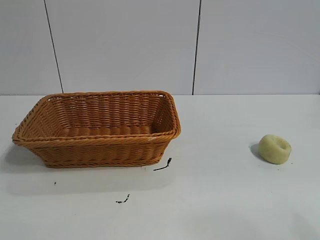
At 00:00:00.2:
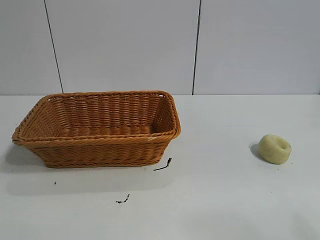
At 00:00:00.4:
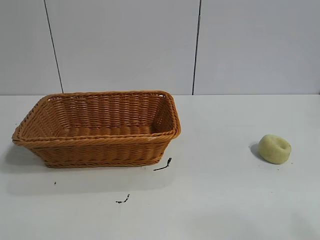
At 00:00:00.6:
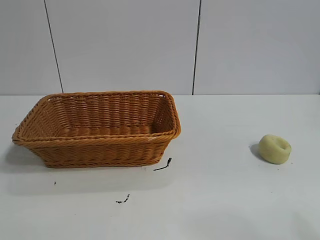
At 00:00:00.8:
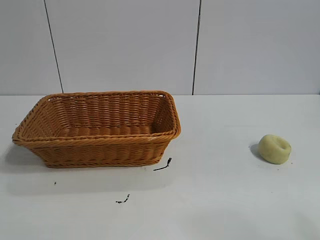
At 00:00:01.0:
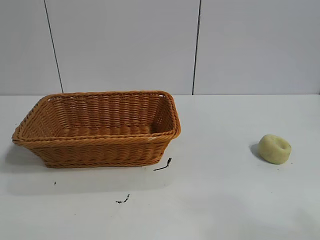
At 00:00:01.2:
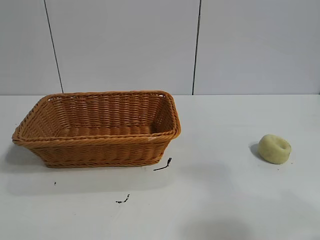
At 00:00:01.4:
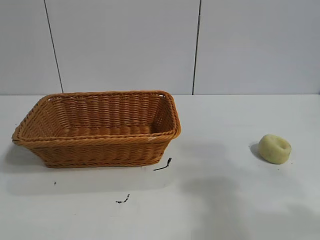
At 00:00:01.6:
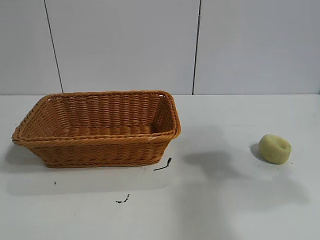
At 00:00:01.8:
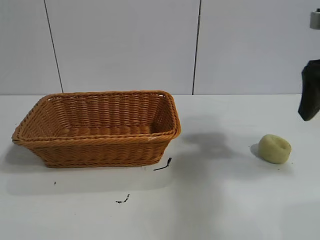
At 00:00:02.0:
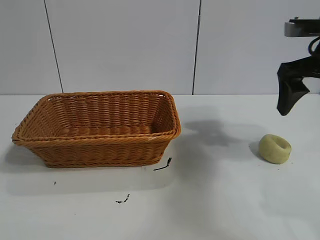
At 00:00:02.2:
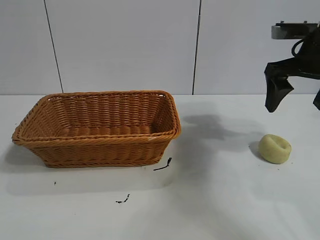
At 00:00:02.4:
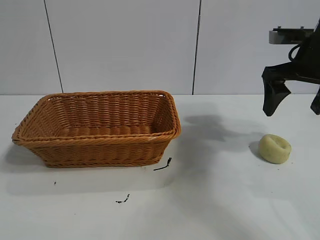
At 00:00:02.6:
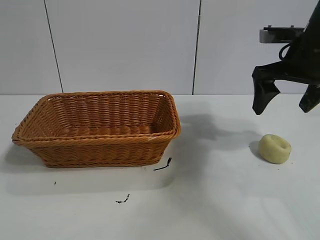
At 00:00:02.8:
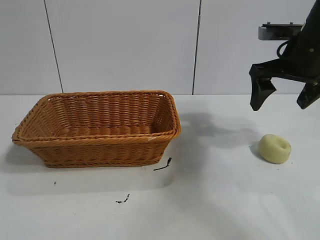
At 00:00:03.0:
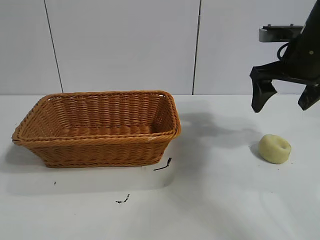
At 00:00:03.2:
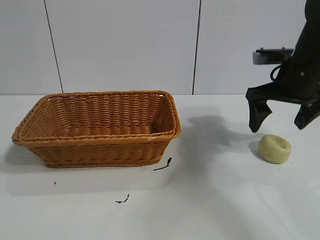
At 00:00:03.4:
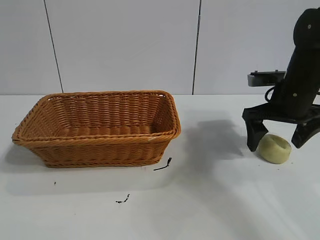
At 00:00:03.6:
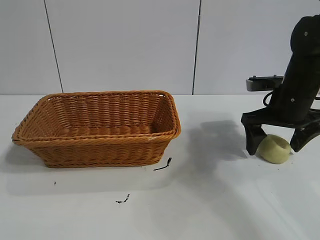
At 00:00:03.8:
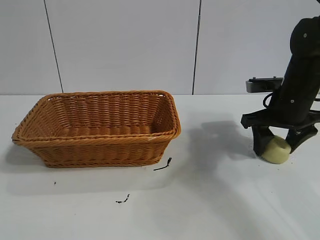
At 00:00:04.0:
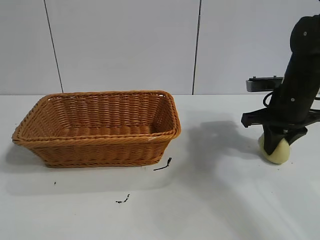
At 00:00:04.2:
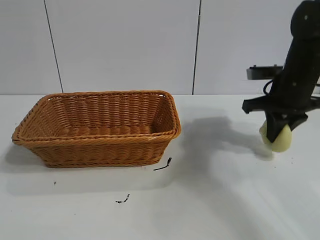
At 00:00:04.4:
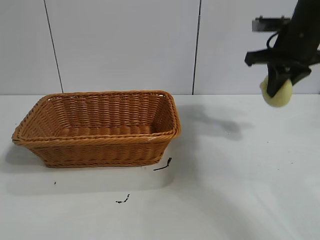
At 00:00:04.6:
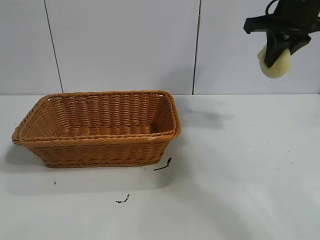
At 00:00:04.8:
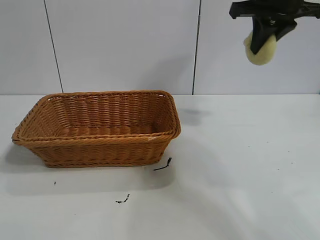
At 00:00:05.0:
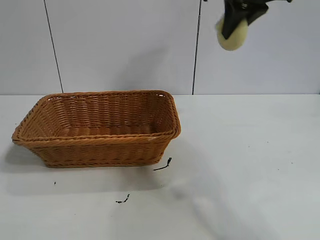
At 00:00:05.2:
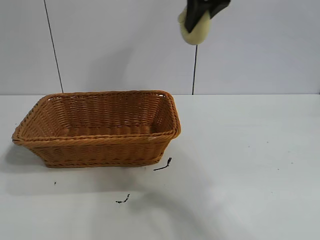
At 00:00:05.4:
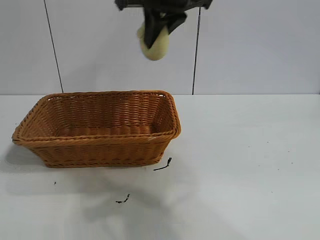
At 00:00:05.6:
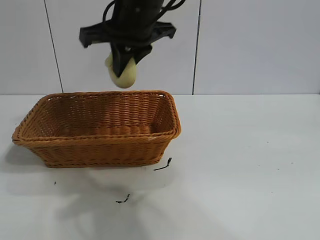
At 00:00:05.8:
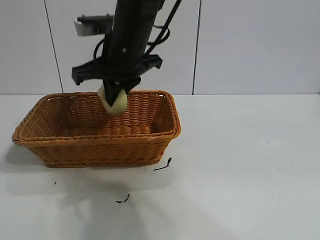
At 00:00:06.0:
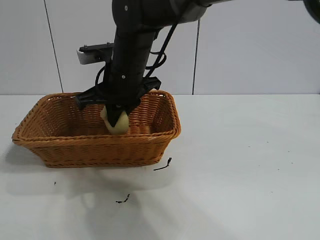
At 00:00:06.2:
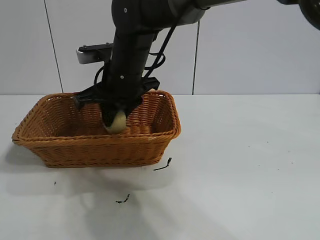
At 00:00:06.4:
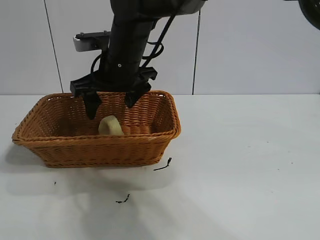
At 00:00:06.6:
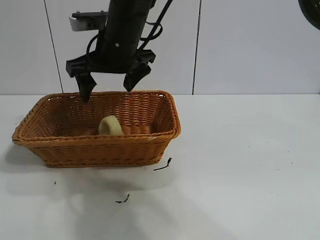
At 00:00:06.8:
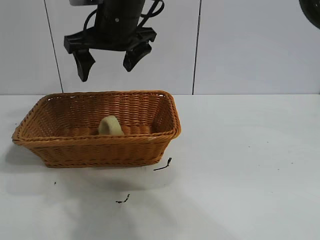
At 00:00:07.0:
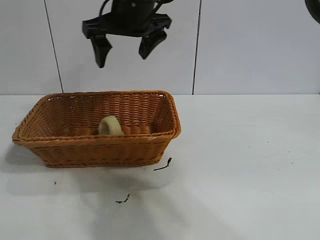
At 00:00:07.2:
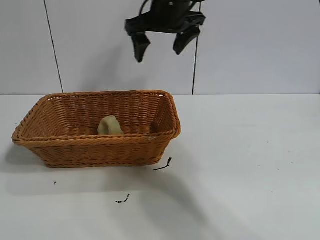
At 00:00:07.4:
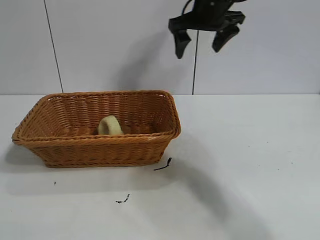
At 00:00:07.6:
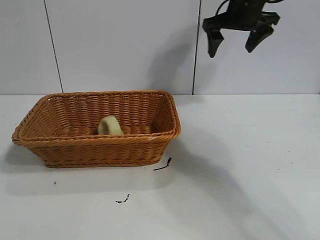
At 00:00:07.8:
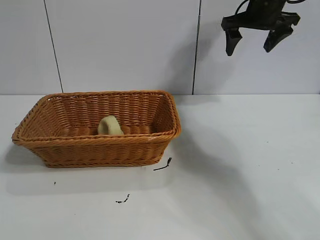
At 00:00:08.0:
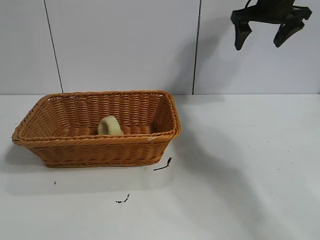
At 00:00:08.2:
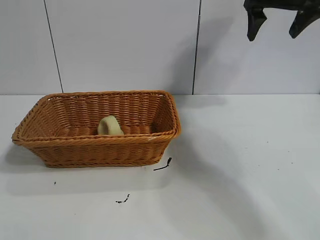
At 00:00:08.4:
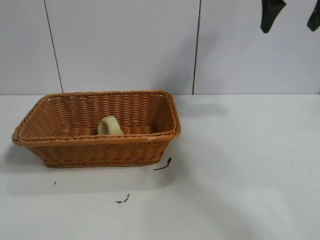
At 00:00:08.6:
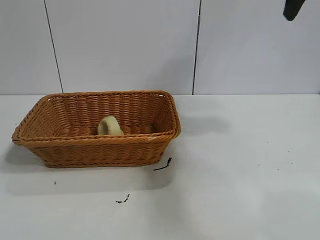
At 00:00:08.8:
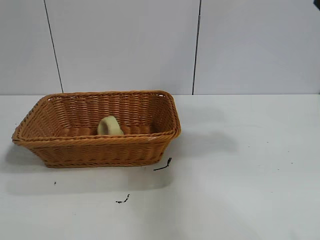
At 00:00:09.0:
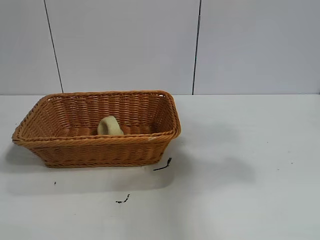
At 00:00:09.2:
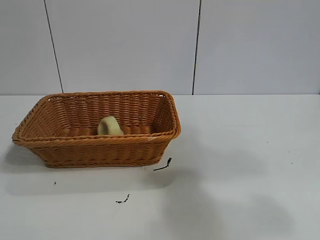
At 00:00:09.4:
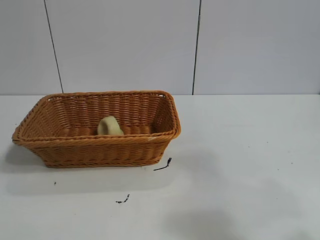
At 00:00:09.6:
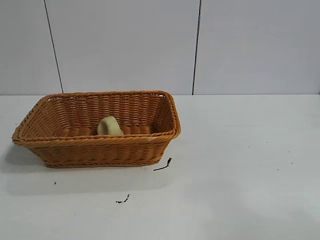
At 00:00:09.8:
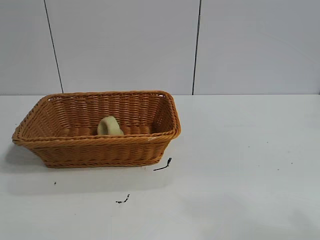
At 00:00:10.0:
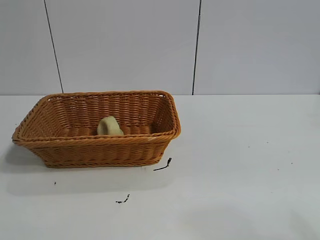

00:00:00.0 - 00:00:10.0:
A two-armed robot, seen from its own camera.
Task of the whole recording: pick up the egg yolk pastry and put it into the basket.
Step, 00:00:00.8 - 00:00:04.0: Grasp egg yolk pastry with right gripper.
Step, 00:00:04.2 - 00:00:06.4: Place the egg yolk pastry in the basket with right gripper.
